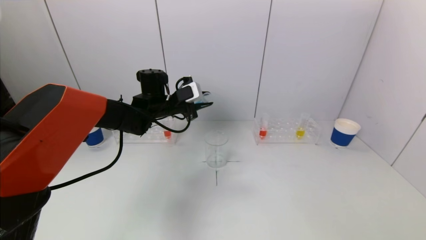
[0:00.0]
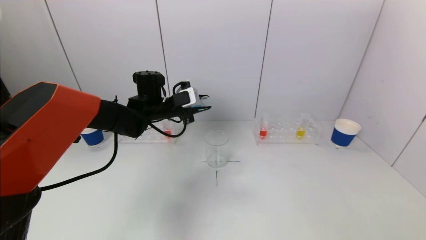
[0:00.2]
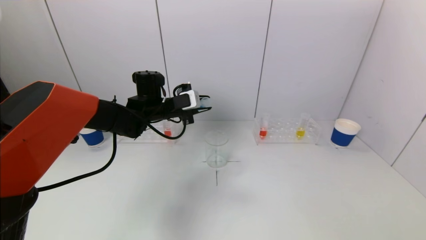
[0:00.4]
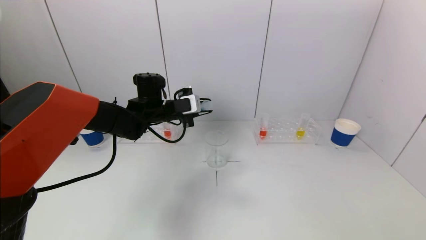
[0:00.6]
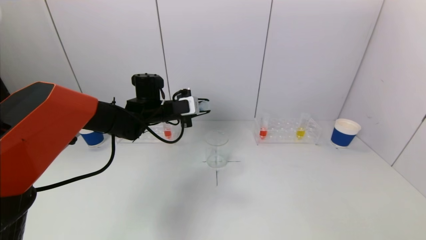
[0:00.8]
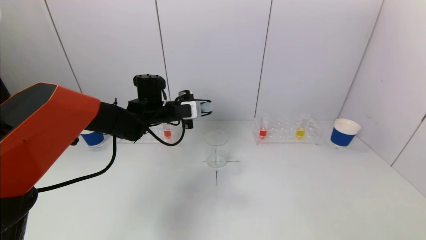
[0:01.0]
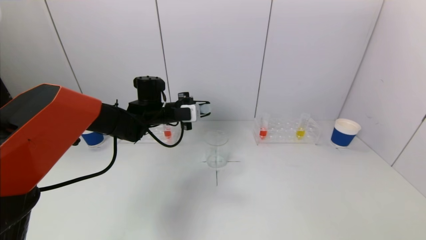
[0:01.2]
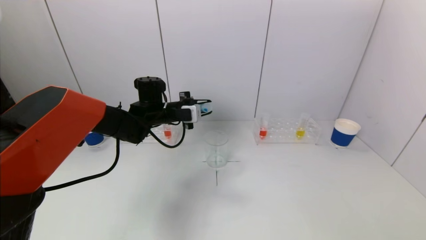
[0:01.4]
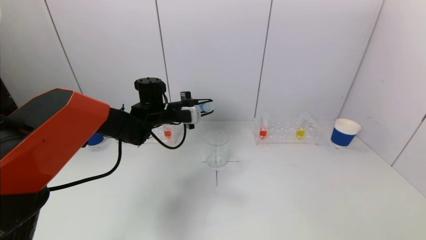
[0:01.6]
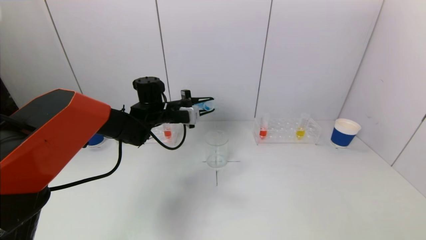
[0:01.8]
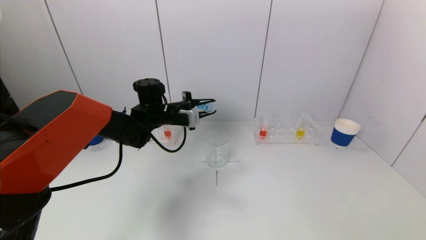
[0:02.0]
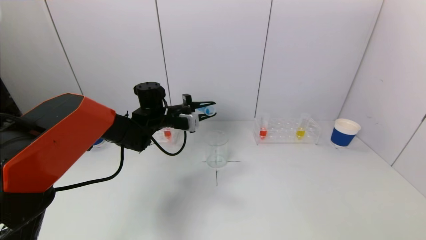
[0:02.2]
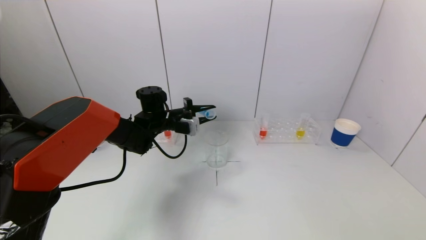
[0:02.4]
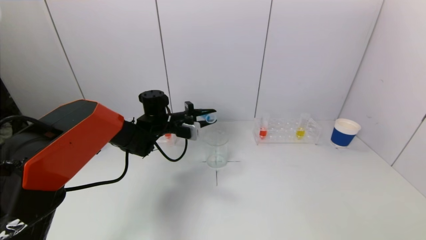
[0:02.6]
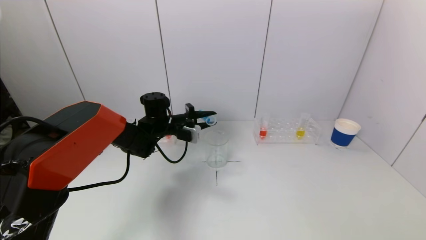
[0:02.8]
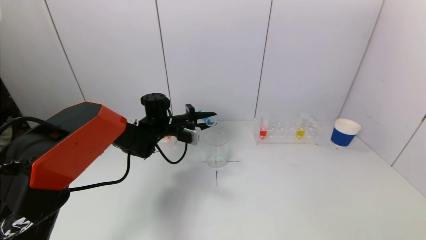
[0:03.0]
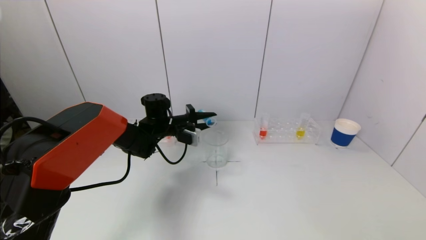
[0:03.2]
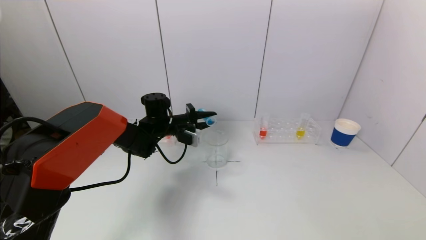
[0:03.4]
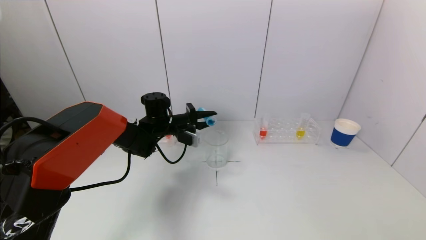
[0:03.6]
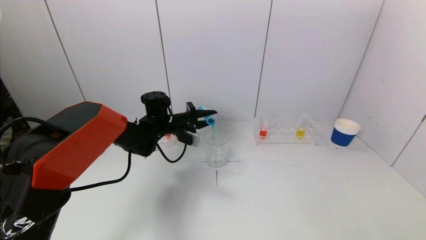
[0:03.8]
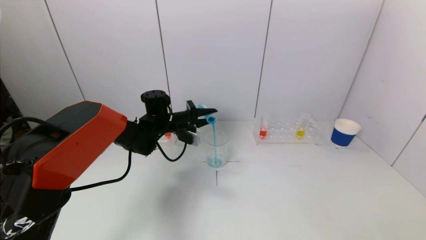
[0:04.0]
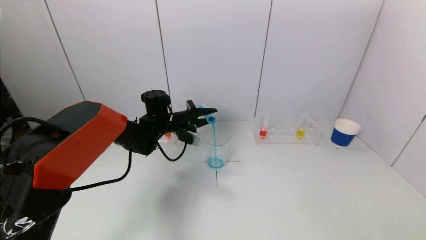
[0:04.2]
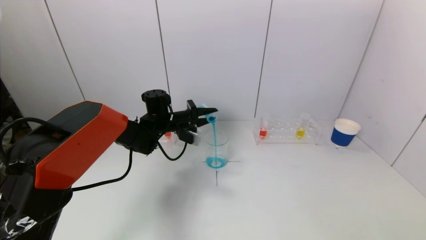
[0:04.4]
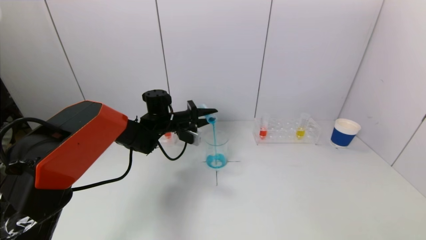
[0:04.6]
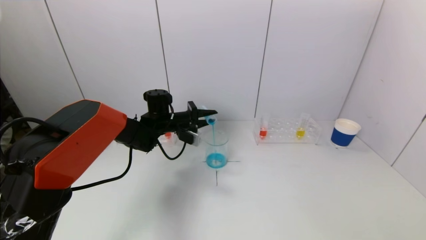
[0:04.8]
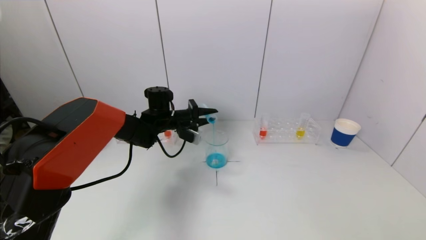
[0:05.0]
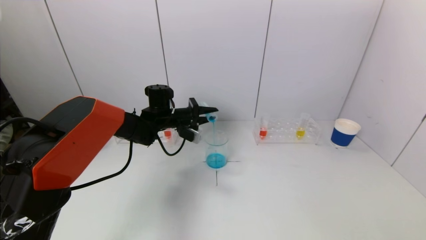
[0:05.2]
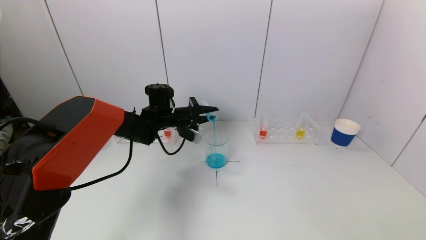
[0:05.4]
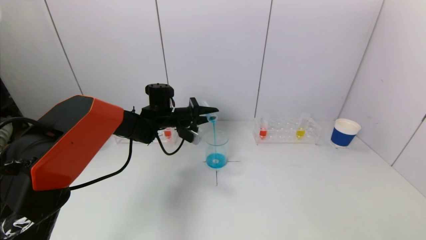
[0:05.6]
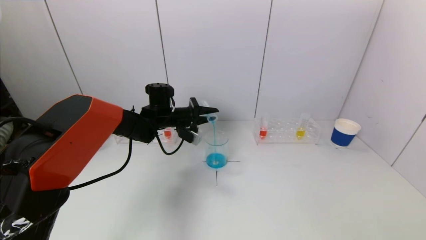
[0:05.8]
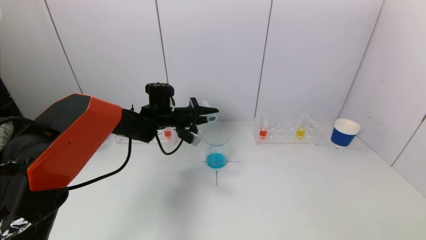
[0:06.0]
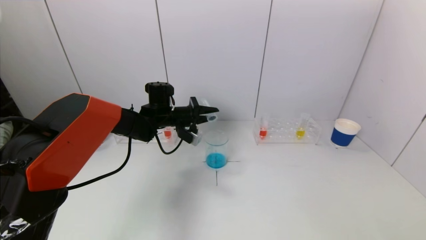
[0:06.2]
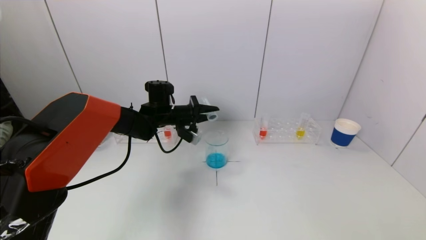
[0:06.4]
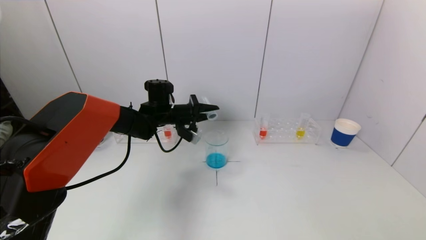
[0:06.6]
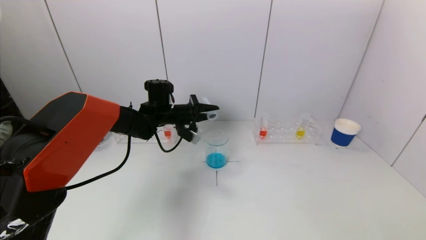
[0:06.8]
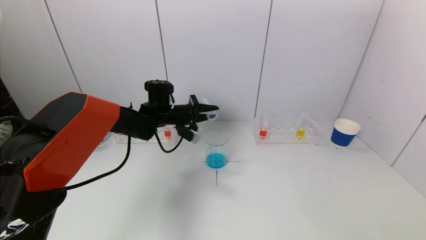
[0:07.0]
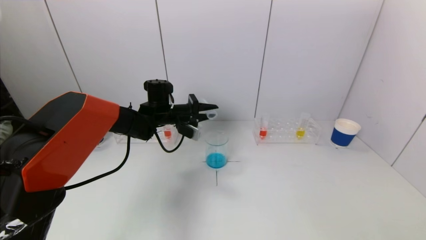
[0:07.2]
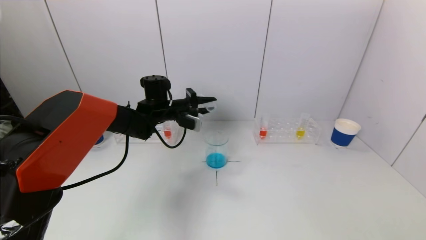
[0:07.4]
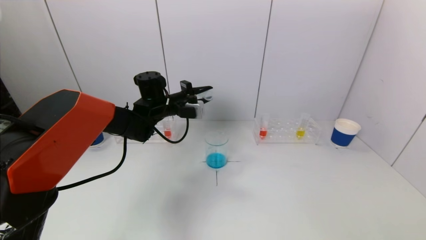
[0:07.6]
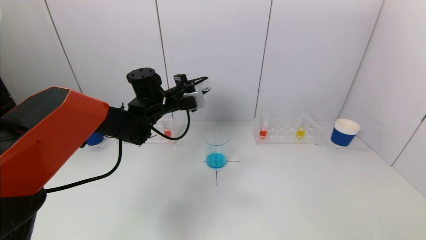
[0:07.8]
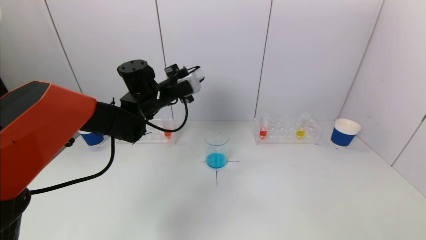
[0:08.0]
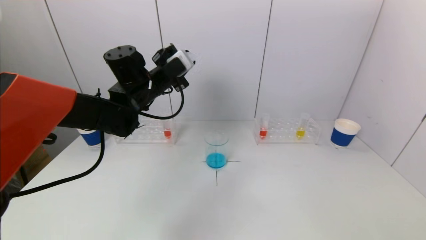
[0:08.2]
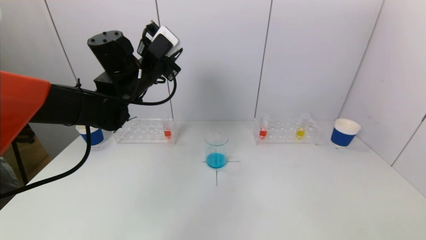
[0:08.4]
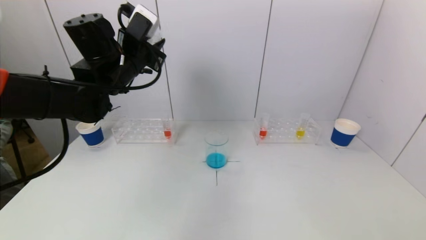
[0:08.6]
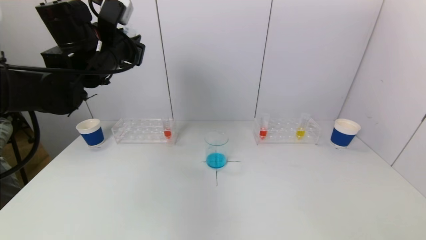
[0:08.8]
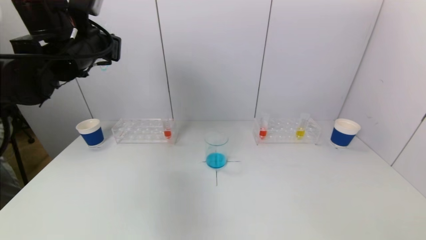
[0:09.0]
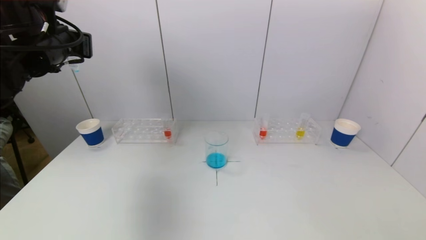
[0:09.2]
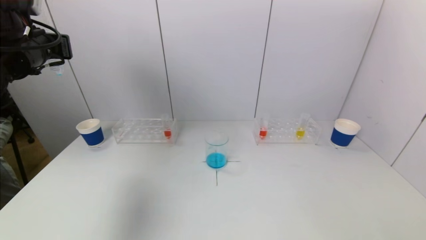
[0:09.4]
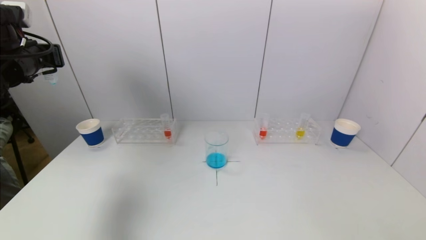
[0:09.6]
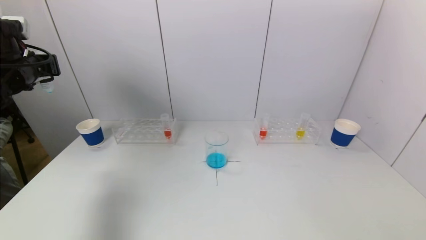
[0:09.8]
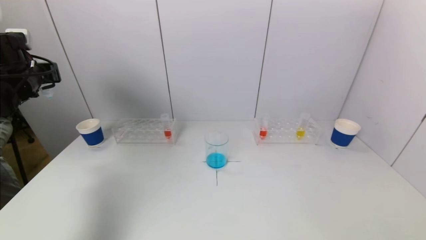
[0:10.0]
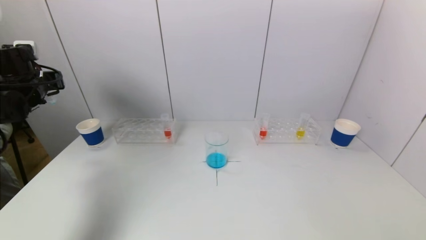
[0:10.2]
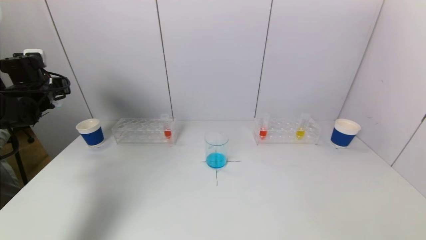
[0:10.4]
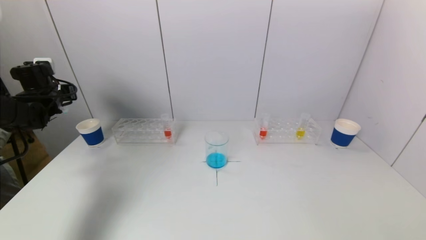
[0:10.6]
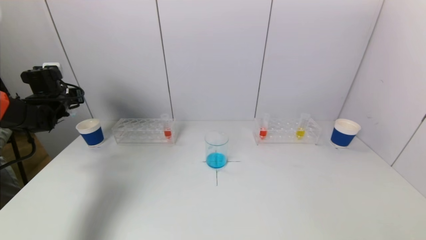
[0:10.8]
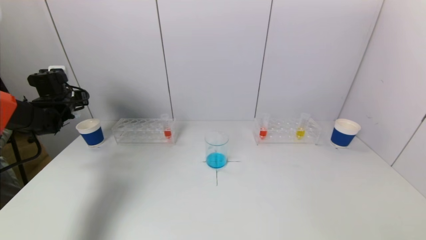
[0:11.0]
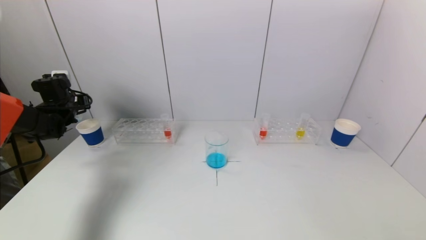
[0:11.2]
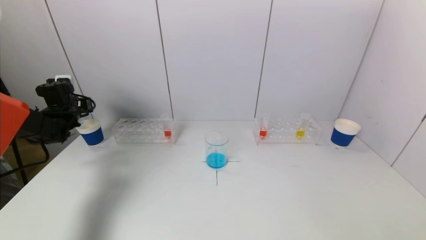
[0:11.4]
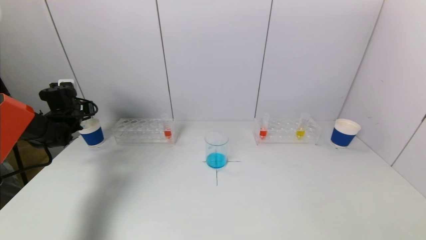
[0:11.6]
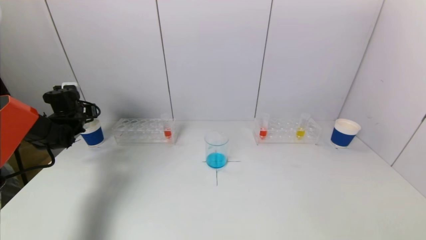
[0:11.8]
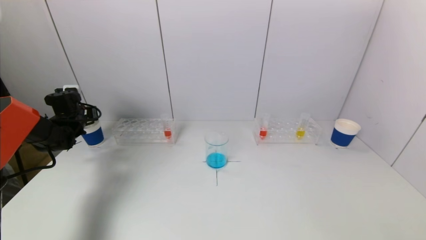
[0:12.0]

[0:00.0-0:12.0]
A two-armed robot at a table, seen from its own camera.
Task of the whole recording: pick up a test tube with pigment on left test tube rack and a test tube with pigment on right test tube rack by grippers and pour them into the beaker.
Step, 0:00.0 to 0:06.6: Pour the blue reagent into the graduated cylinder with the left gripper.
0:01.6 to 0:03.0: The grippers move only a little.
0:03.0 to 0:04.4: The grippers move only a little.
0:04.4 to 0:06.0: There are only small adjustments of the grippers.
0:07.6 to 0:09.0: The left gripper travels upward, to the left and backward by about 20 cm.
0:09.0 to 0:10.4: The left gripper is displaced to the left, downward and forward by some 25 cm.
0:10.4 to 0:12.0: The left gripper goes approximately 10 cm downward.

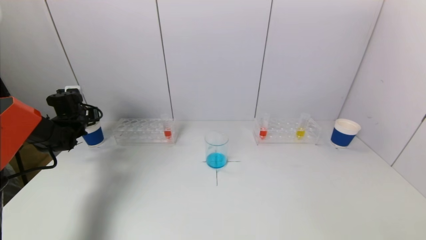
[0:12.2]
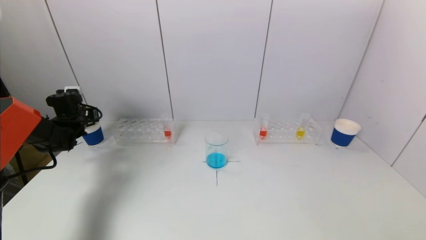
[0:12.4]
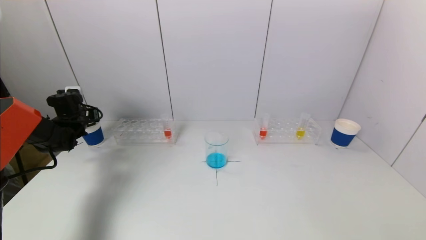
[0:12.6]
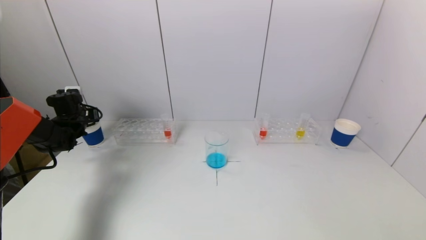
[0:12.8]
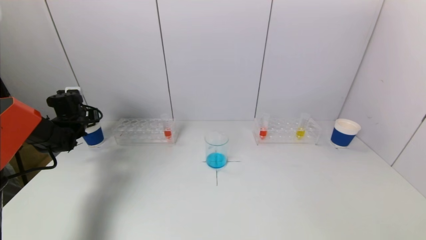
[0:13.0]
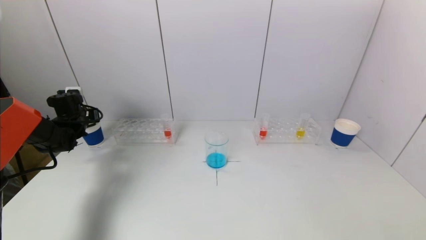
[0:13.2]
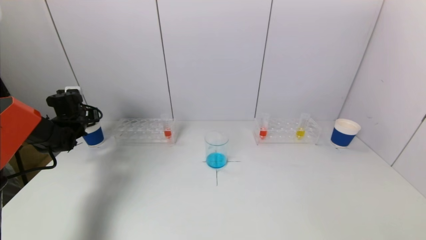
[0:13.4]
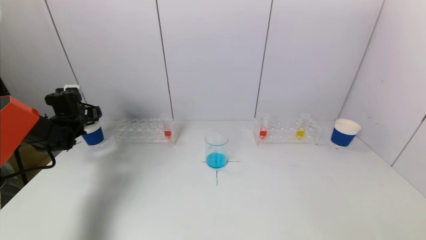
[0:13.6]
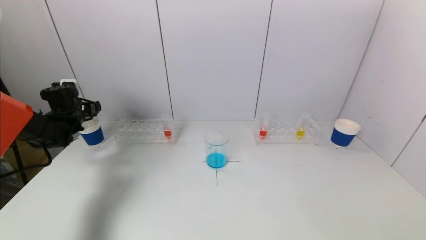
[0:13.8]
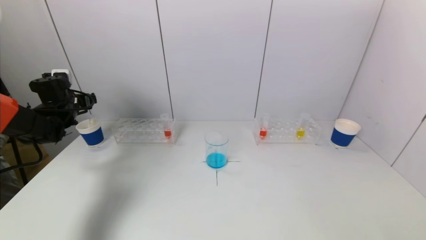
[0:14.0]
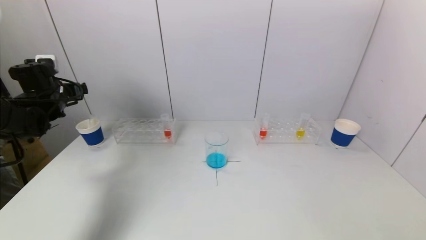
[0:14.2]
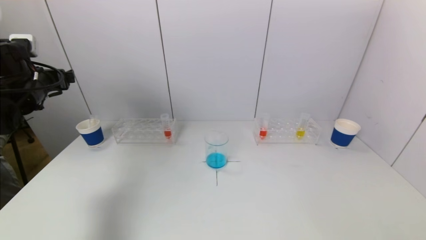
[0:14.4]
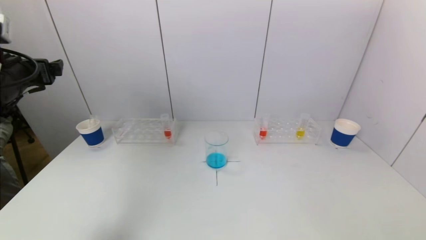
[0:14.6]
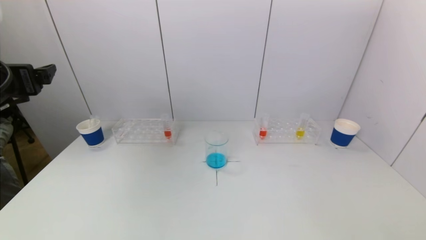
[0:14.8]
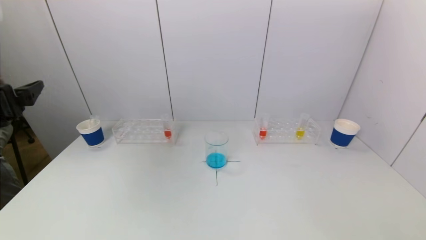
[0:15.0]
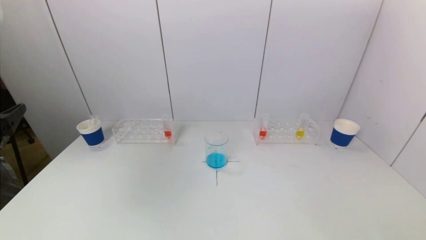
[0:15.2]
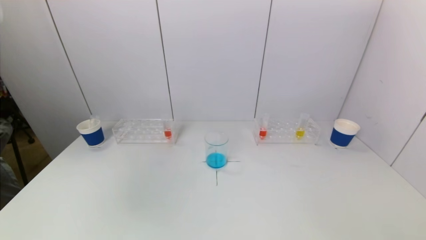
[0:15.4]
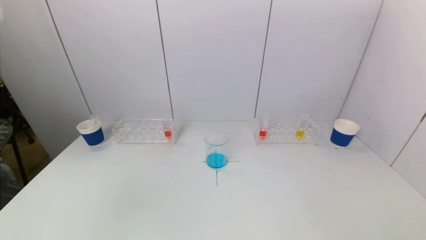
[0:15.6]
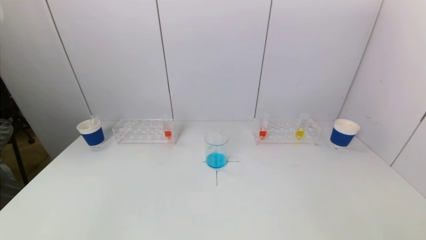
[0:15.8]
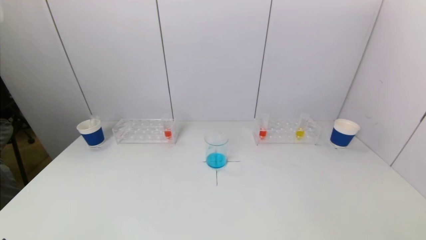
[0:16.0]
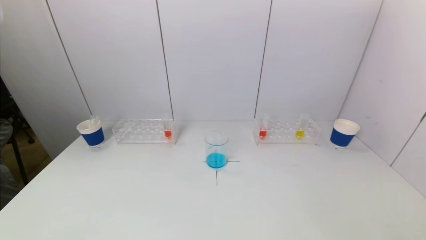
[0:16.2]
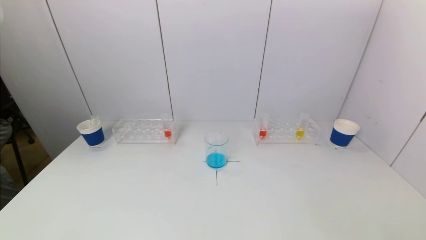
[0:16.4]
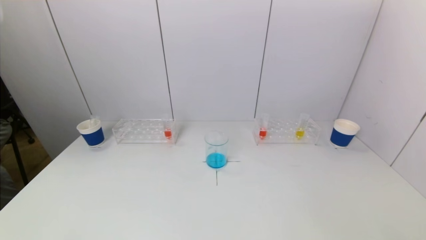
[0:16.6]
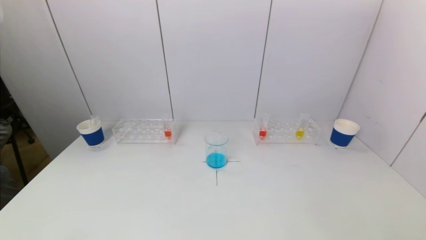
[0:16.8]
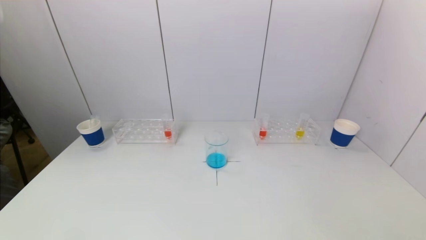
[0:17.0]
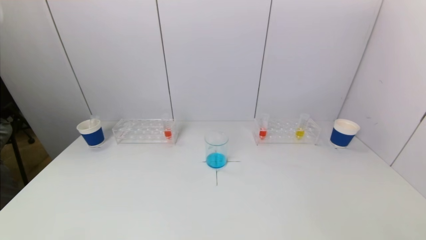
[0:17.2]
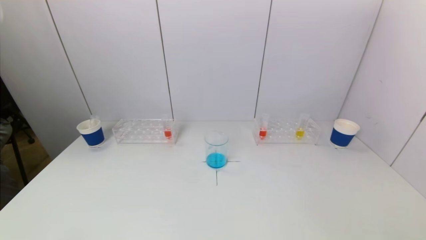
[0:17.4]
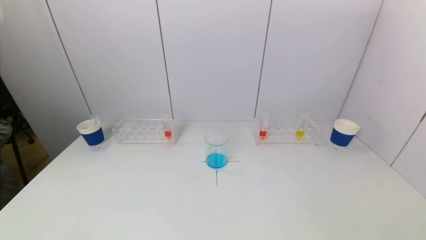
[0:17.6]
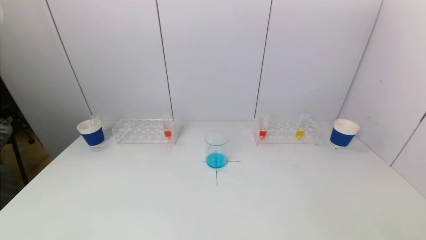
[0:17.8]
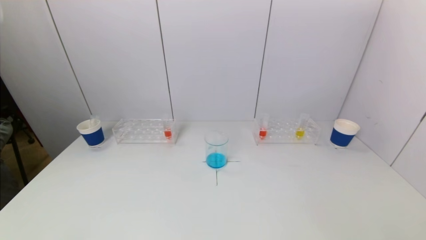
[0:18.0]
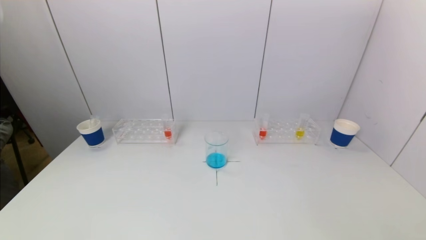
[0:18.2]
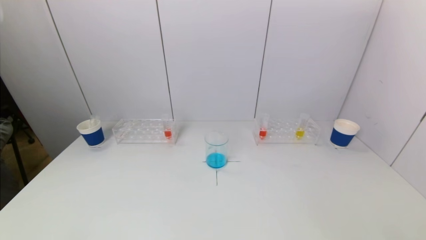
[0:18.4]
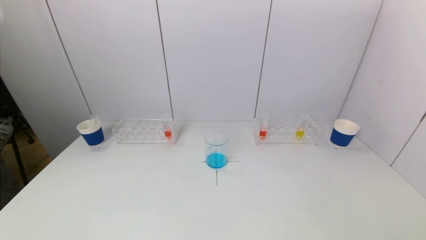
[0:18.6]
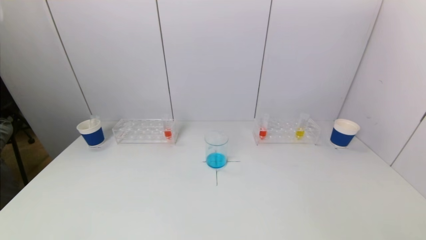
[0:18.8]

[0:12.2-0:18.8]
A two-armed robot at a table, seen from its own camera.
Task of the whole recording: pick up a test tube with pigment on left test tube rack and a test tube with pigment on right test tube rack by grippers and pour them into the beaker.
0:12.2 to 0:13.8: The left gripper opens up.
0:13.8 to 0:15.4: The left gripper is displaced backward by about 35 cm.
0:15.4 to 0:17.2: The left gripper heads downward and backward, covering approximately 20 cm.
0:17.2 to 0:18.8: Both grippers stay put.
